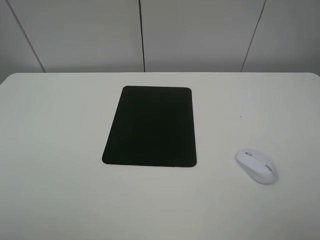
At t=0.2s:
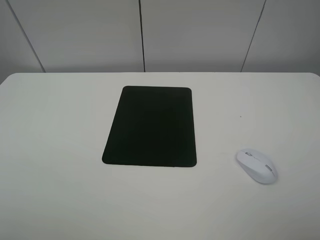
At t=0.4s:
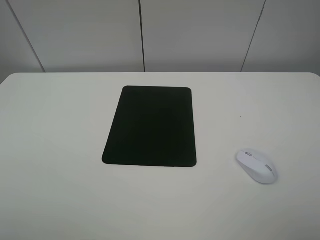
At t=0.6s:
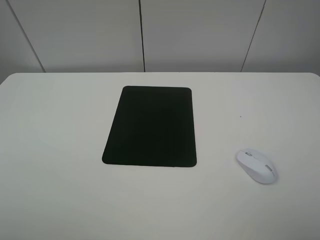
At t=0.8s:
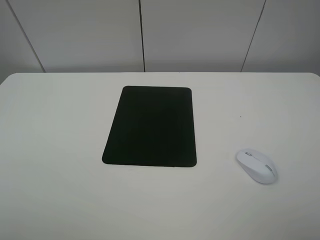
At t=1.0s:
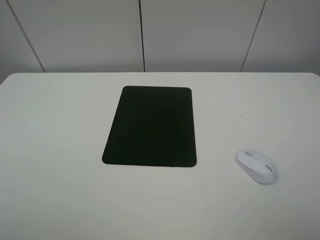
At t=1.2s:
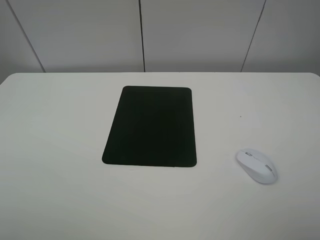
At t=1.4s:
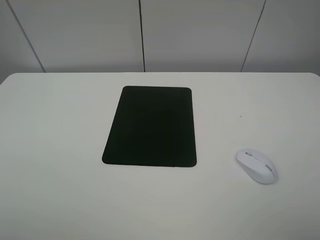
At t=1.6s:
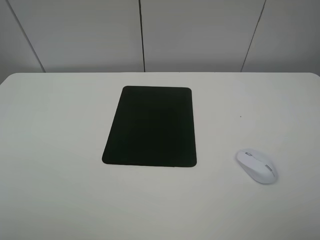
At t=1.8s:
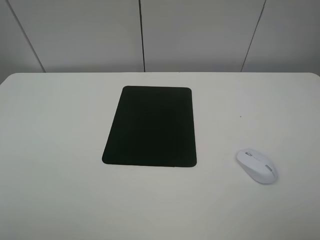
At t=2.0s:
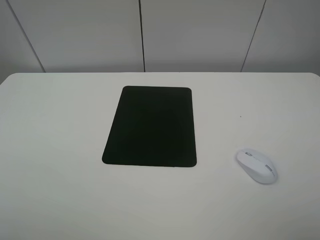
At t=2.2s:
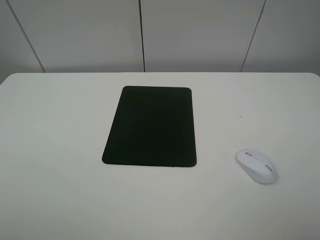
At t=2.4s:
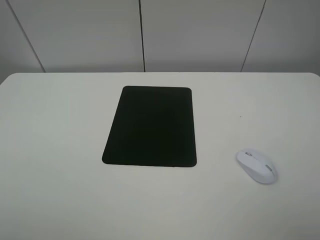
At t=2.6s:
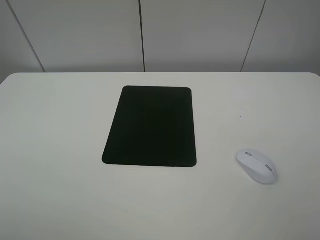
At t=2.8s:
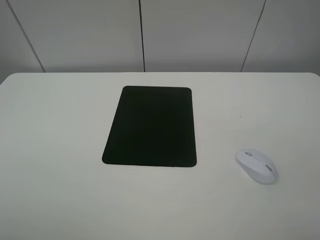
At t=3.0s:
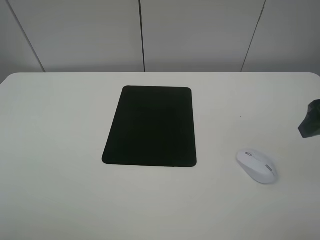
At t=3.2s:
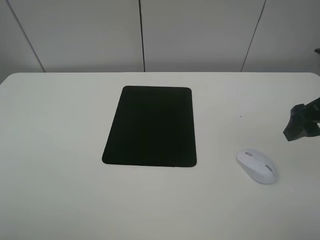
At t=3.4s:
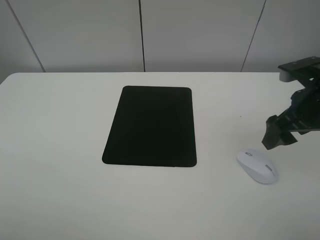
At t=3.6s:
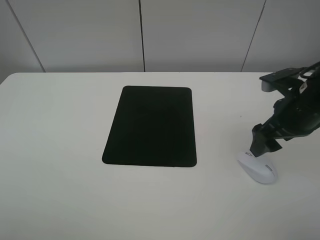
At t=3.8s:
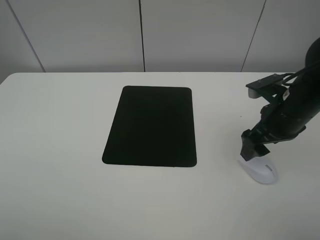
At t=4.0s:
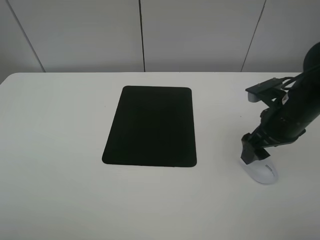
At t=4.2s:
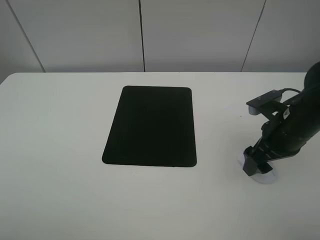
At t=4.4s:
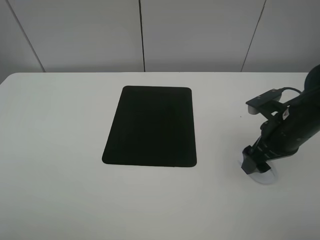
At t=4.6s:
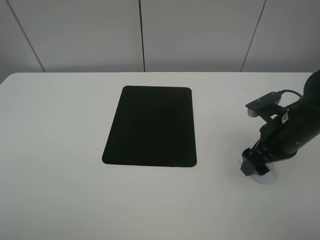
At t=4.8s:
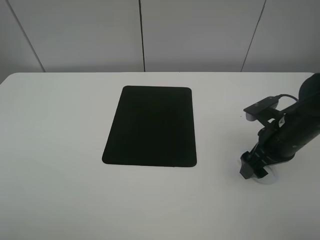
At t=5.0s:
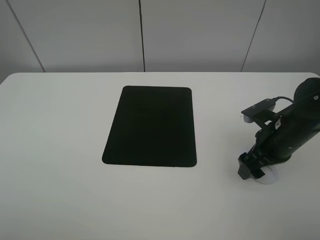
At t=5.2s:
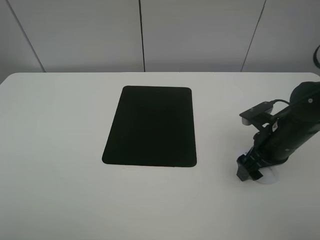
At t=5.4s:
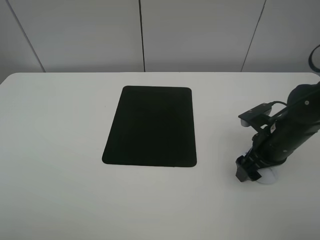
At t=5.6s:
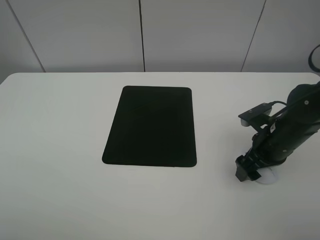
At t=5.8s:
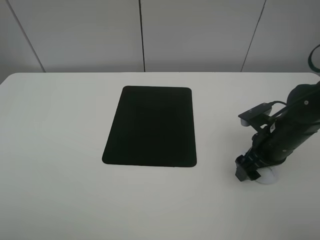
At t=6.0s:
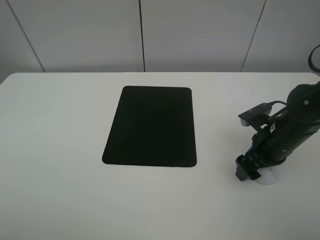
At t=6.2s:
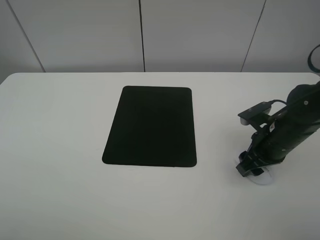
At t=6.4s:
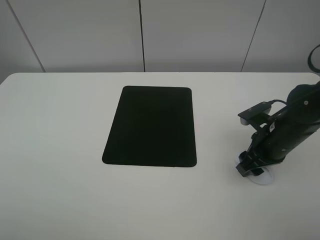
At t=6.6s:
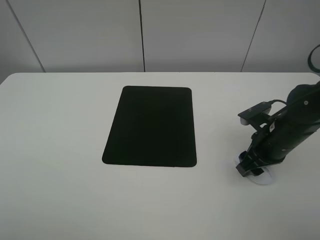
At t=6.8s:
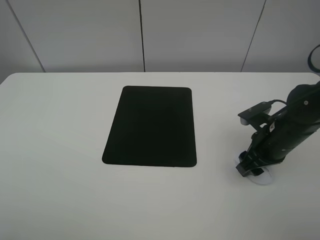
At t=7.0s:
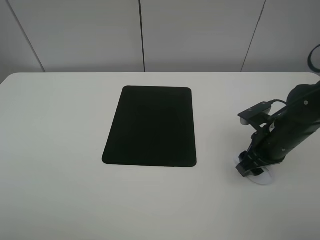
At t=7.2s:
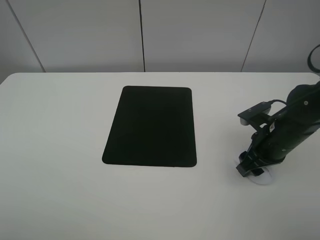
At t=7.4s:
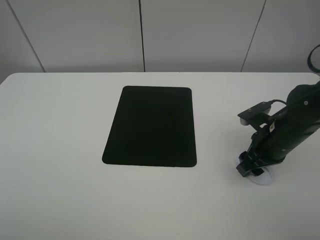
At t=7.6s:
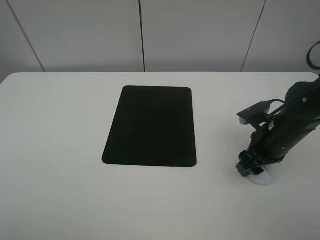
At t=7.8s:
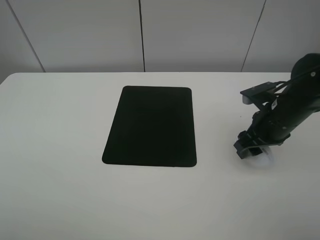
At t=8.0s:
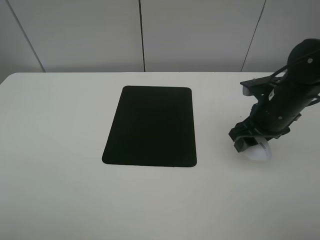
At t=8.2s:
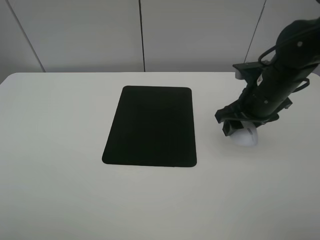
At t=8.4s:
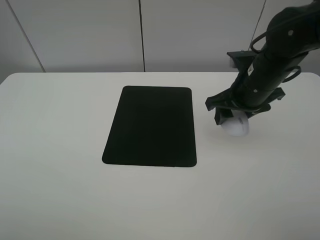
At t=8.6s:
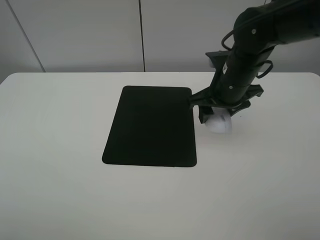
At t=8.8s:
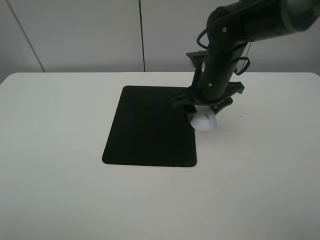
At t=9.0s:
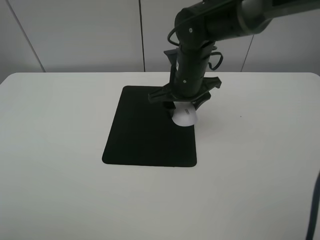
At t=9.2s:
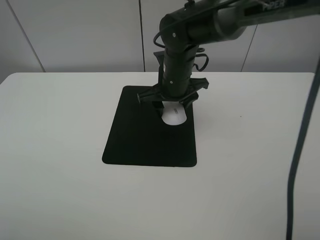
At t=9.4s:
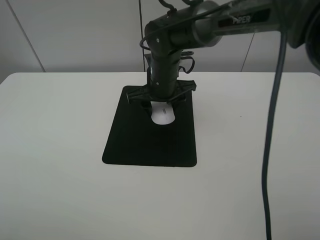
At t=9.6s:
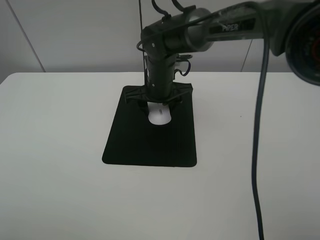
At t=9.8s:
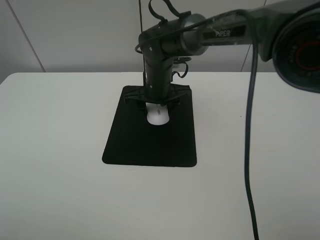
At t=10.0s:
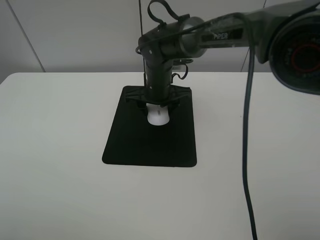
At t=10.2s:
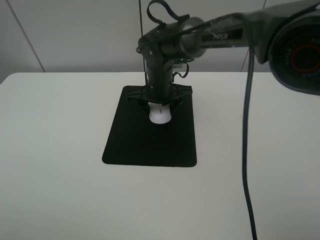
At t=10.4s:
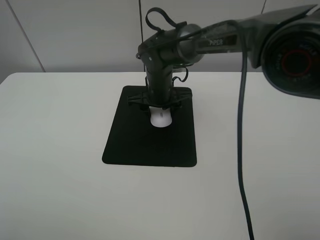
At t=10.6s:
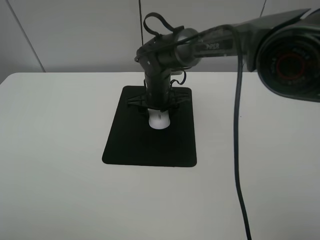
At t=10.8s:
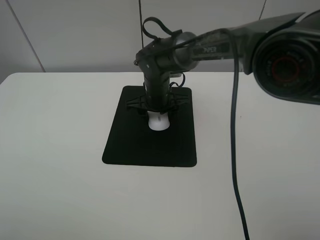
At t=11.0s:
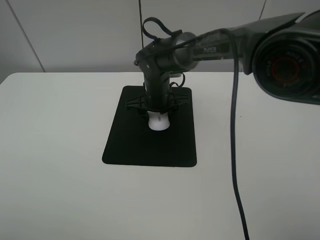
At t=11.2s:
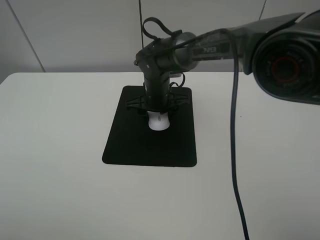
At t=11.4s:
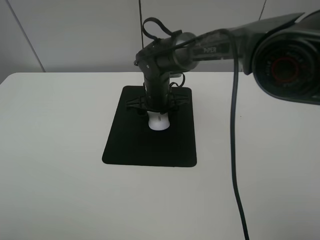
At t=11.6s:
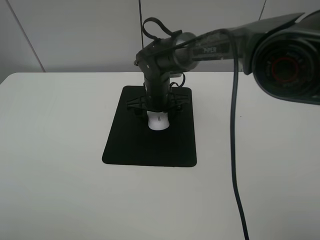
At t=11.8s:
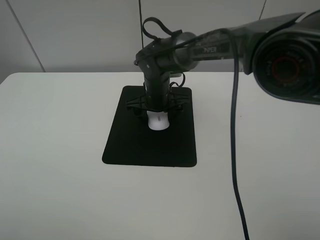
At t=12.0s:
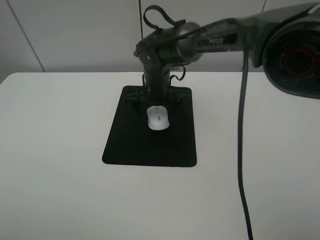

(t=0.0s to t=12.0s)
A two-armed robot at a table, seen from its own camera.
Step, t=0.0s - t=6.8s: Grasp the mouse with the right gripper.
Step, t=7.0s - t=11.6s: Place the mouse on the mouse mat with the right gripper.
t=0.0s - t=1.6s: Both grippers stay put.
t=1.6s - t=3.0s: The right gripper travels forward by approximately 20 cm.
t=3.0s - t=4.4s: The right gripper goes approximately 15 cm downward and to the left.
t=4.4s - t=6.0s: There are only small adjustments of the grippers.
t=6.0s - t=7.6s: The right gripper closes up.
t=7.6s - t=9.0s: The right gripper shifts about 20 cm to the left, forward and upward.
t=9.0s - t=10.4s: The right gripper heads downward and to the left, covering roughly 10 cm.
t=10.4s - t=12.0s: The right gripper opens.

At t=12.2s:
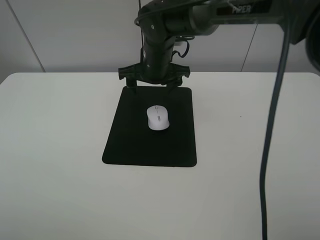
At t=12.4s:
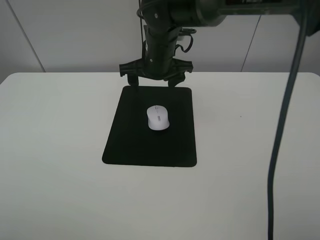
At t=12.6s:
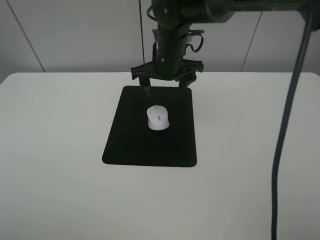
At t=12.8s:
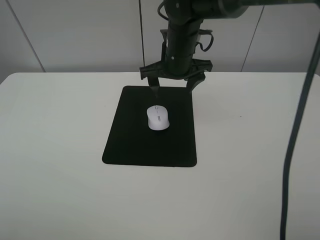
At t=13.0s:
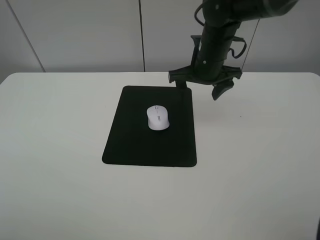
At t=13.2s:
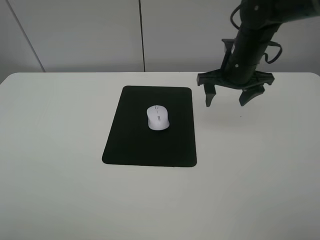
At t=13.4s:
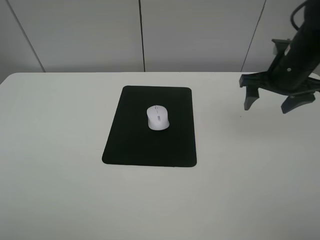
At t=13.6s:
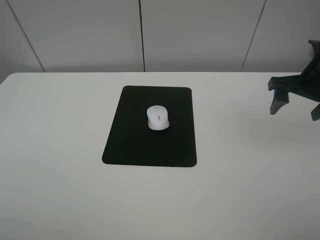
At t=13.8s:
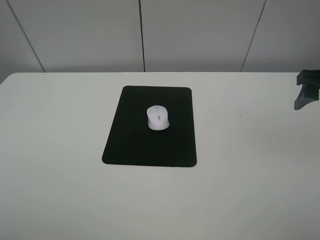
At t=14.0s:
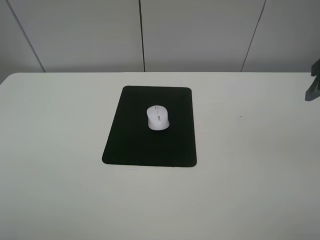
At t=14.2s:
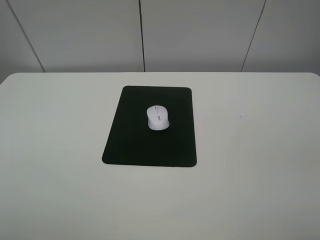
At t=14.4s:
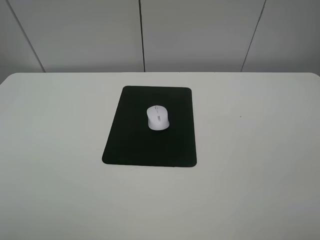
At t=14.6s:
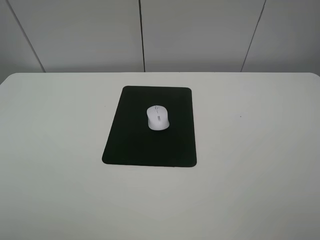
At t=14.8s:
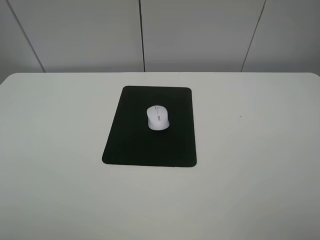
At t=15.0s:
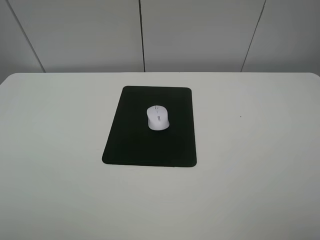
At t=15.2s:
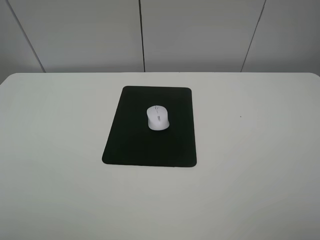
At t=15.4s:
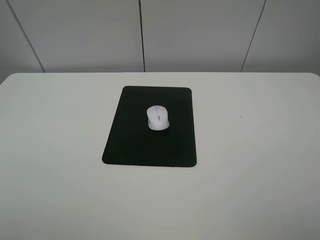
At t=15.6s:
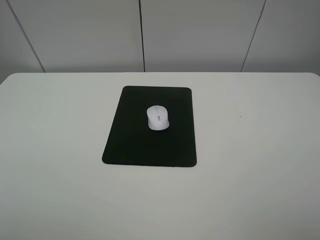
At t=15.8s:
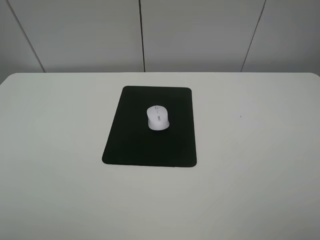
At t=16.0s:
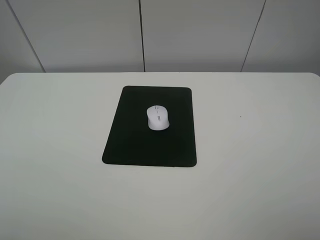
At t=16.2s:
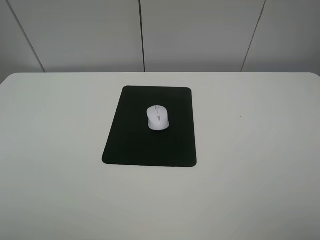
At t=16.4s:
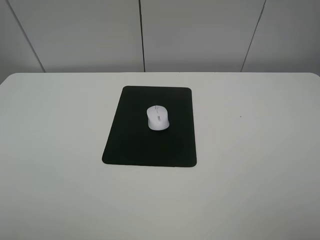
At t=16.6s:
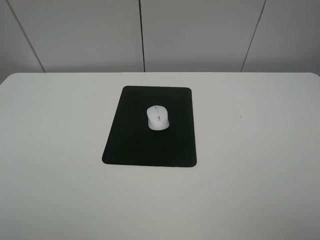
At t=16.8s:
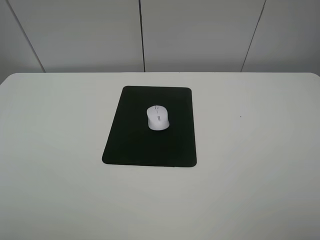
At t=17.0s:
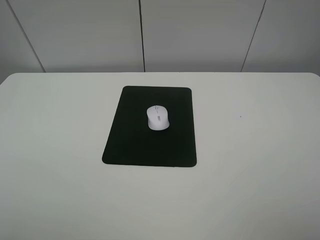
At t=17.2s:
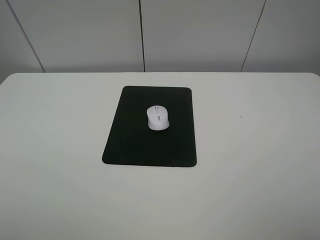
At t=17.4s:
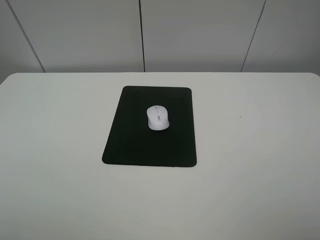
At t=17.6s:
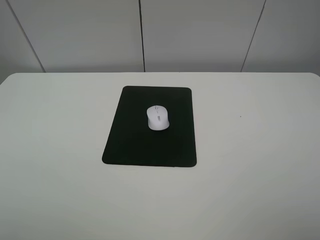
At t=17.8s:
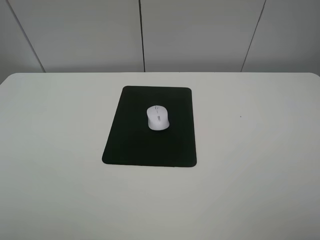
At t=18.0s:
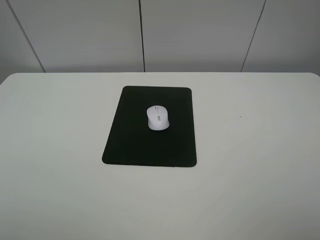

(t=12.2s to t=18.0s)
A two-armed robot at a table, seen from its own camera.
t=12.2s - t=13.6s: The right gripper goes some 30 cm to the right.
t=13.6s - t=15.0s: The right gripper moves backward, some 30 cm.
t=16.6s - t=18.0s: Both grippers stay put.
